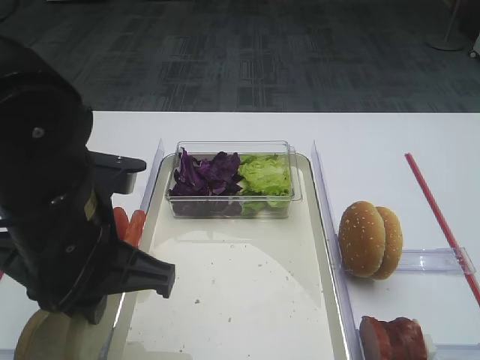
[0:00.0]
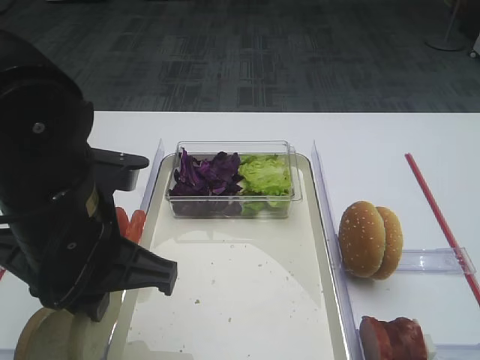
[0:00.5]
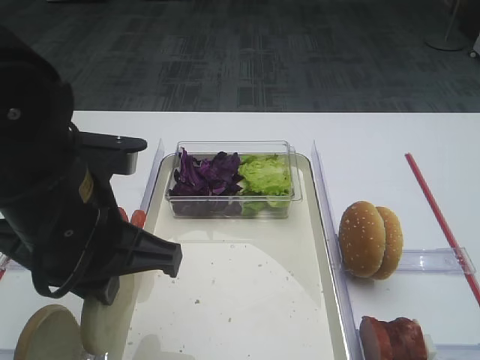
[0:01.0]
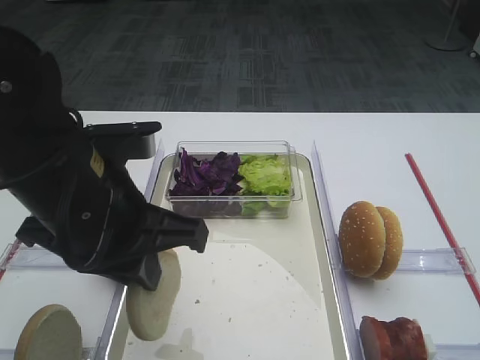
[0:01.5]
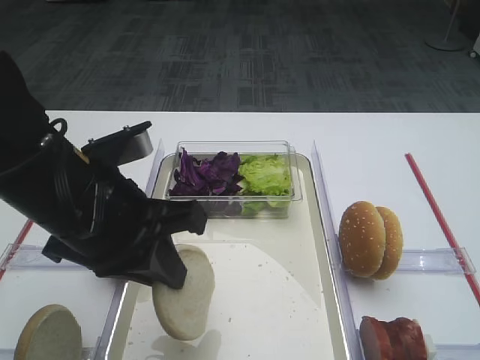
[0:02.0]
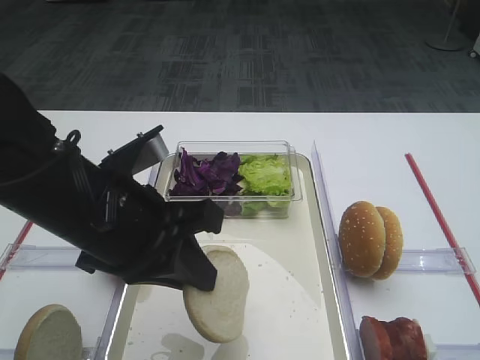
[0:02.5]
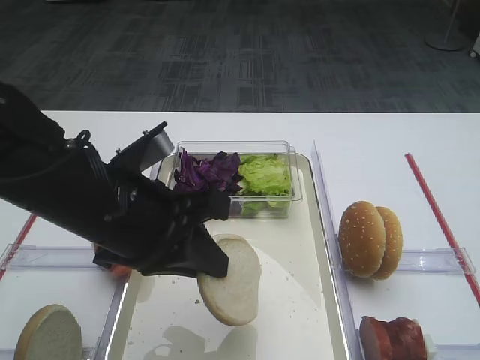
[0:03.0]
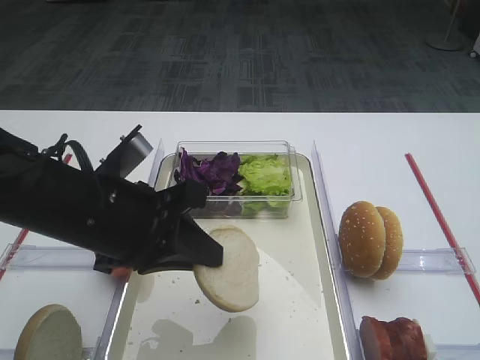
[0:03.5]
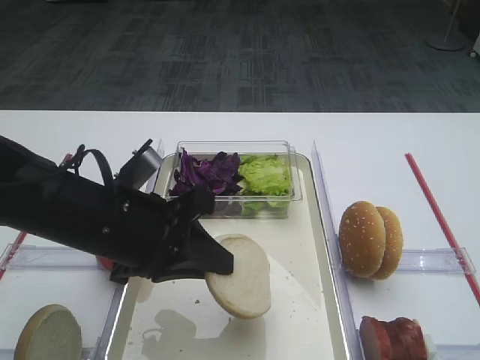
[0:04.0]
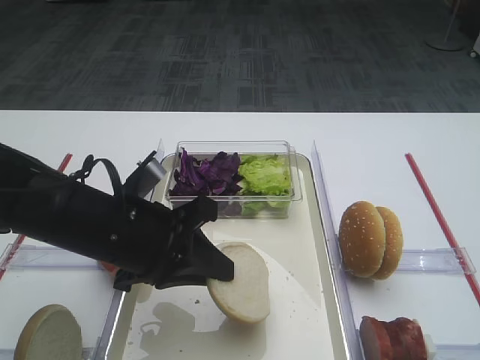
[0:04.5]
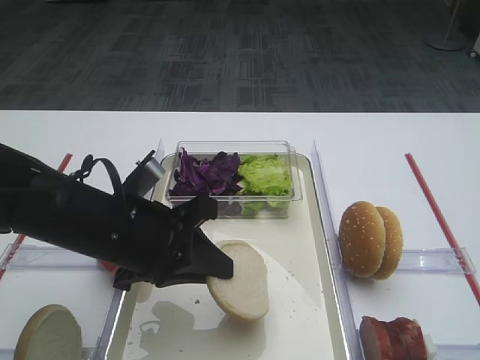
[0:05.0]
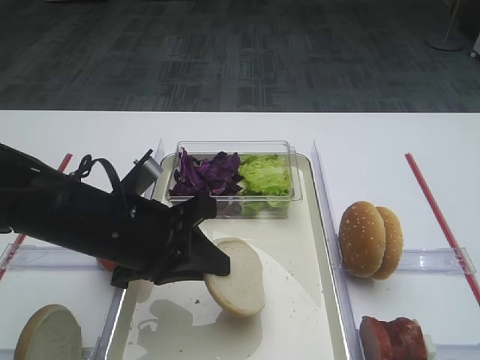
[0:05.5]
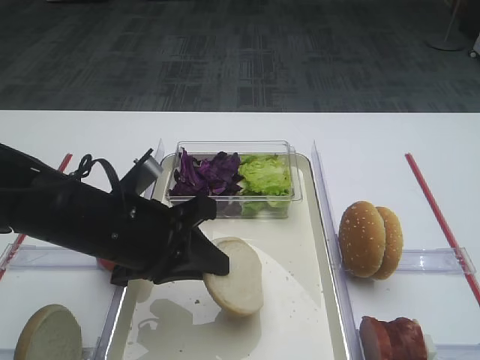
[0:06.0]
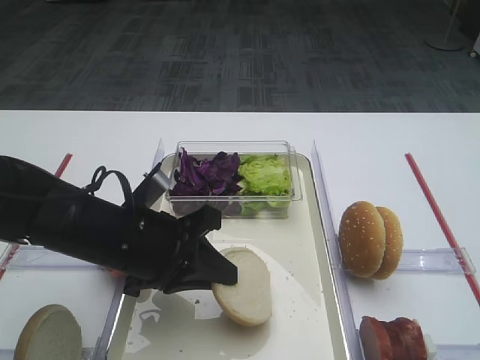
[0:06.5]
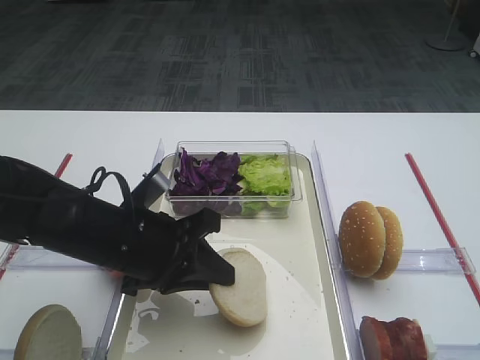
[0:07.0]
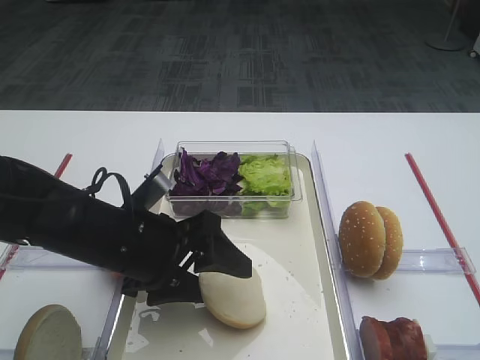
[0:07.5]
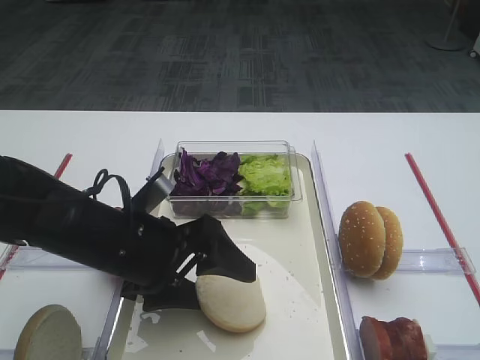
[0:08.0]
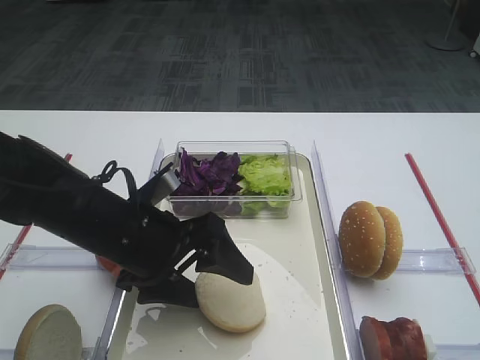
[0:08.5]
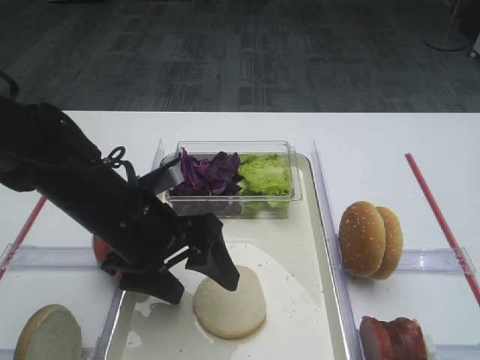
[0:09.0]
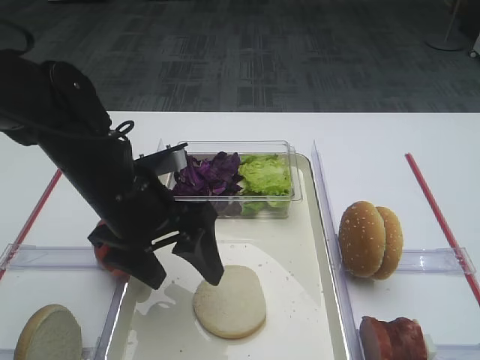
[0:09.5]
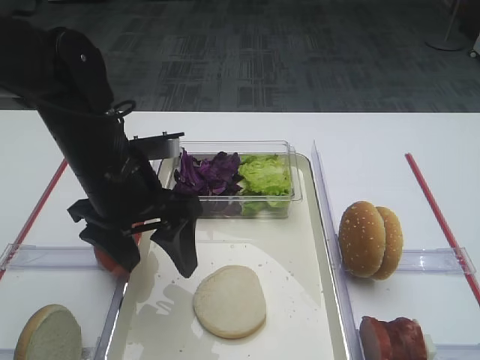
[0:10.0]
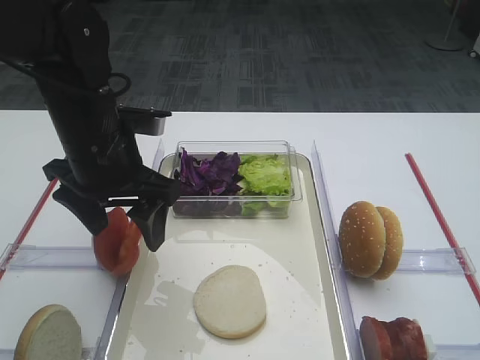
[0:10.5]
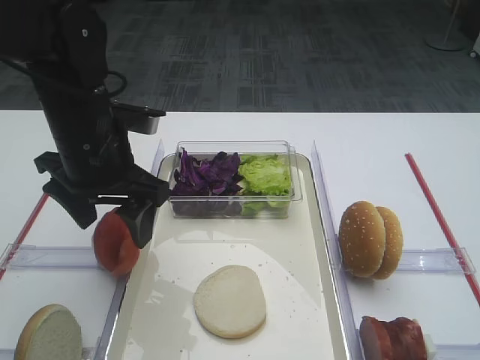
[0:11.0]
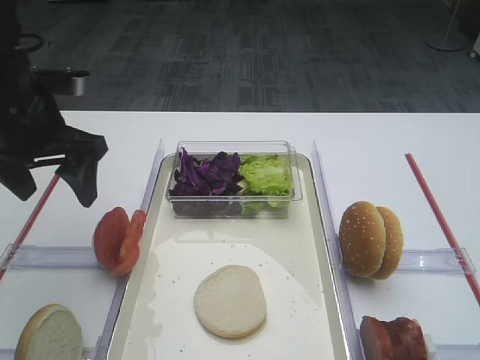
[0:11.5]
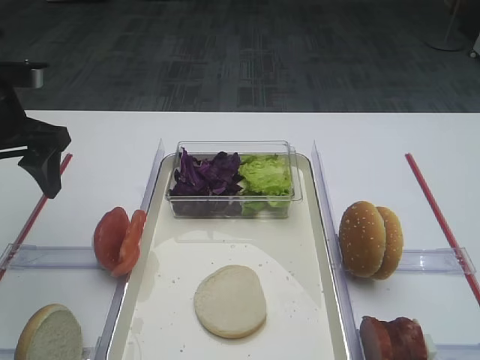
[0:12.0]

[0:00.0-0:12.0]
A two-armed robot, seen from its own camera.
0:02.0 to 0:04.0: The left gripper is displaced downward by roughly 5 cm.
0:04.0 to 0:06.0: The grippers make only small movements.
0:06.0 to 0:08.0: The left gripper opens.
0:08.0 to 0:10.0: The left gripper is displaced upward by roughly 5 cm.
0:10.0 to 0:12.0: The left gripper shifts roughly 15 cm to the left.

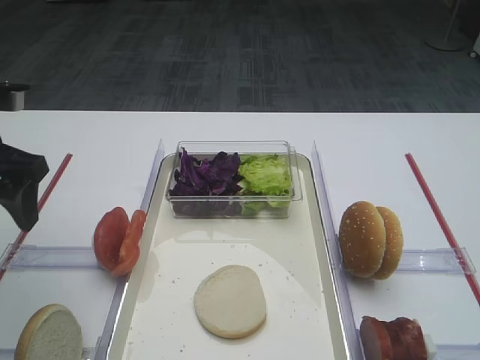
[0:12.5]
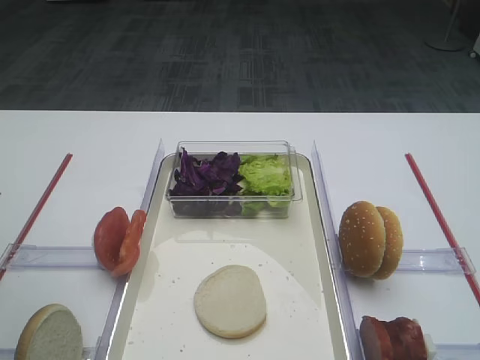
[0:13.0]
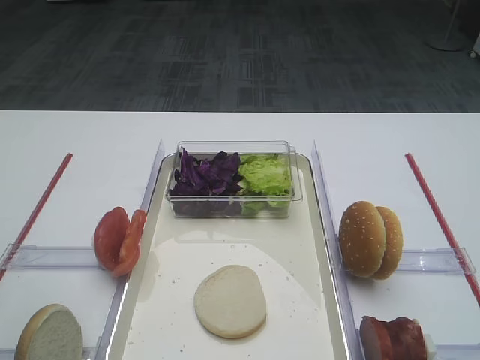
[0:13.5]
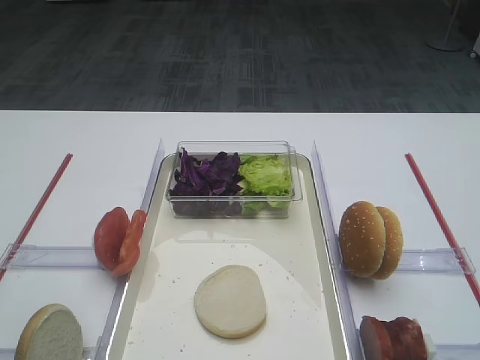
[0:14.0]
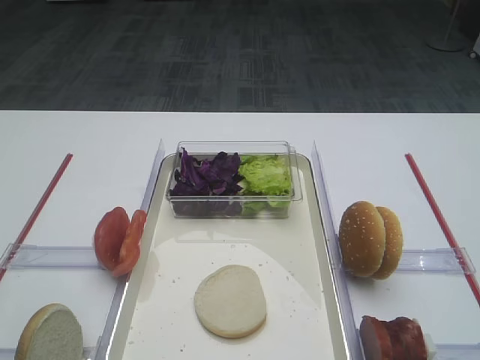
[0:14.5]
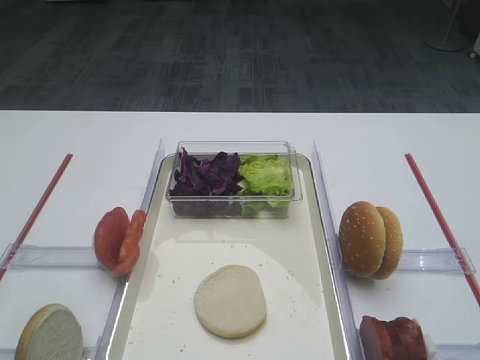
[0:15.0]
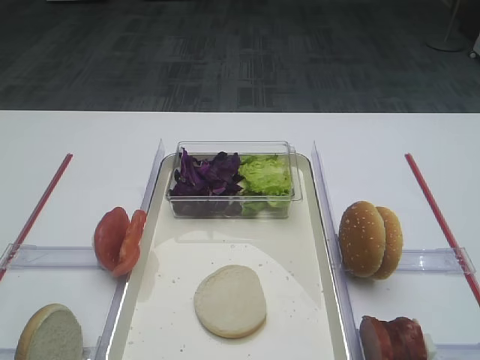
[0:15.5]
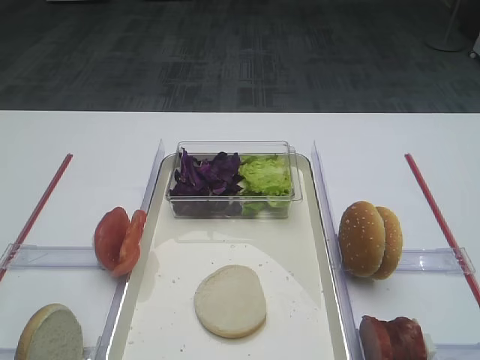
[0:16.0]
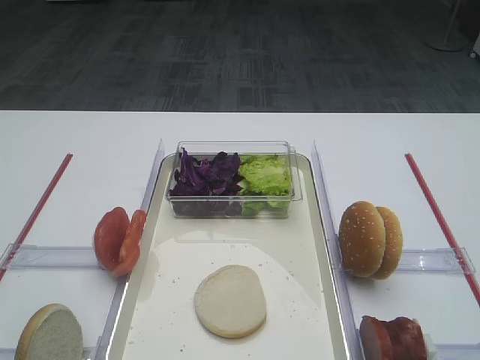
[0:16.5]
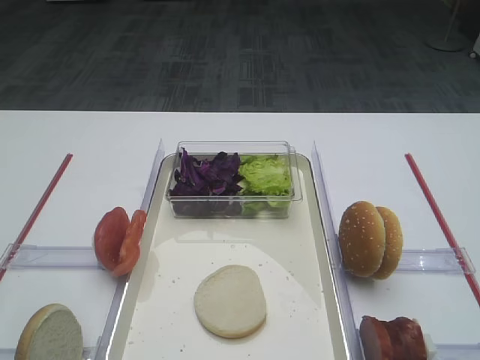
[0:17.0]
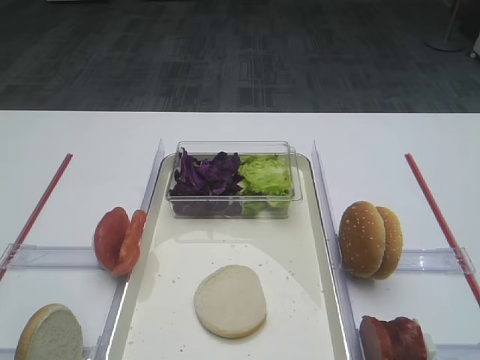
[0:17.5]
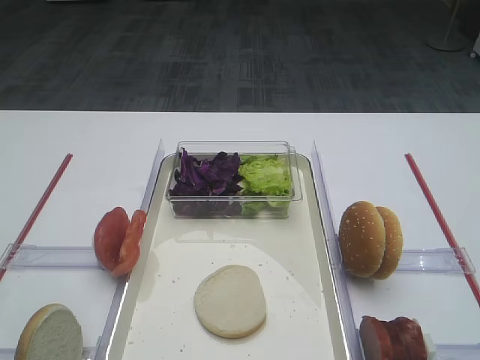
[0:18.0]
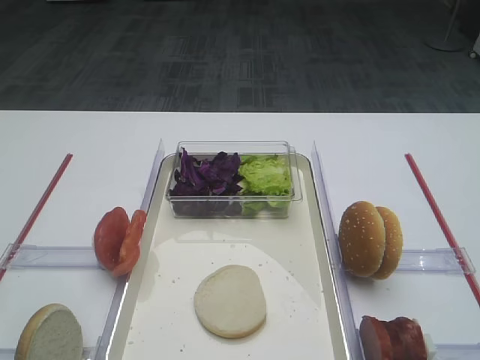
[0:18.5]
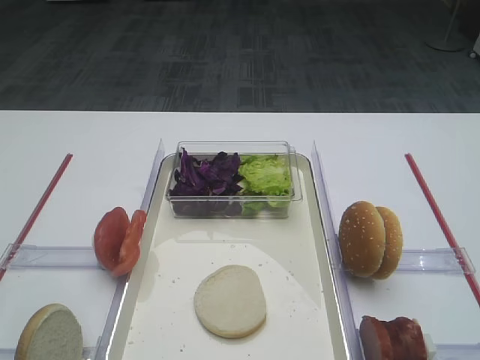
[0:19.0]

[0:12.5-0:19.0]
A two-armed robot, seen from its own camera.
0:12.5 to 0:14.5: The left gripper heads backward, covering about 25 cm.
0:17.0 to 0:19.0: Neither gripper changes place.

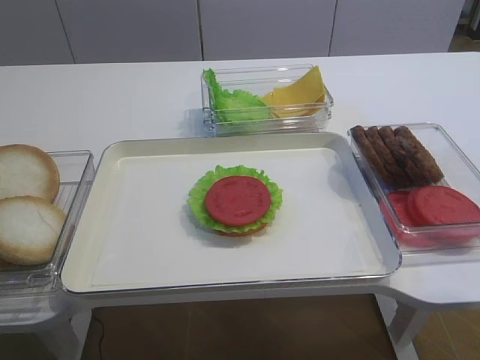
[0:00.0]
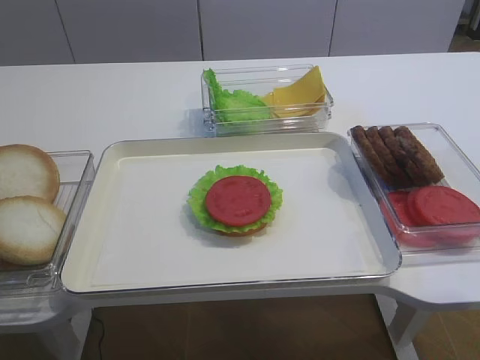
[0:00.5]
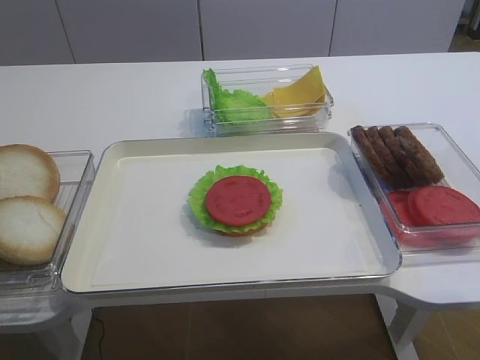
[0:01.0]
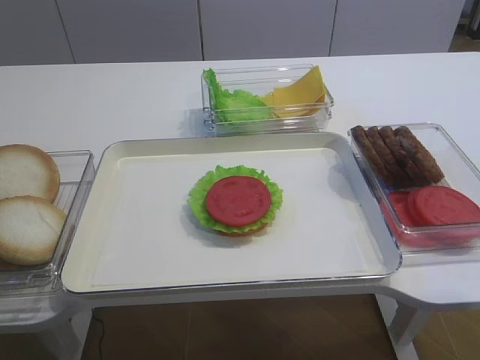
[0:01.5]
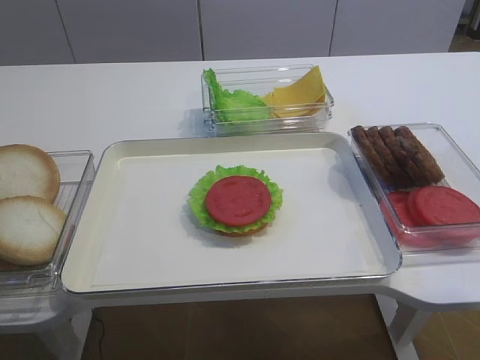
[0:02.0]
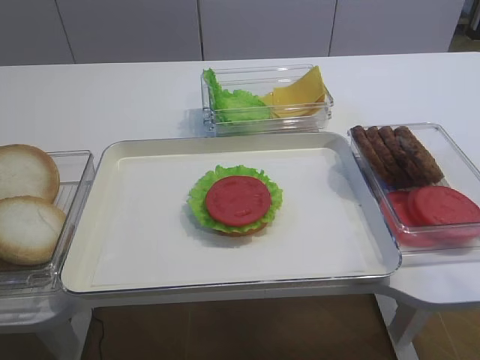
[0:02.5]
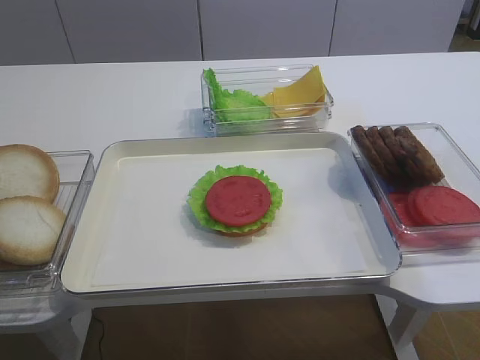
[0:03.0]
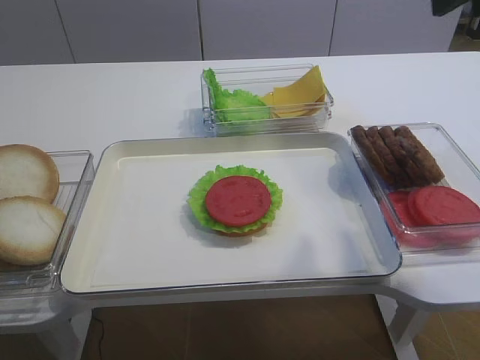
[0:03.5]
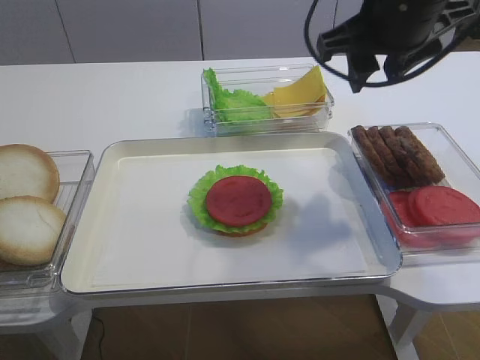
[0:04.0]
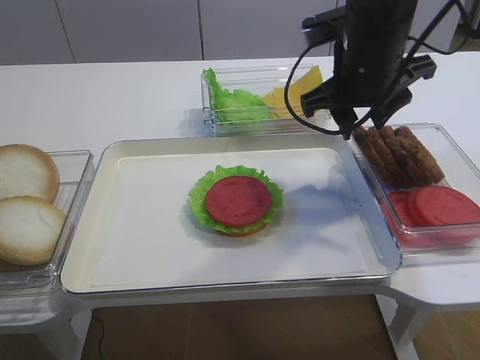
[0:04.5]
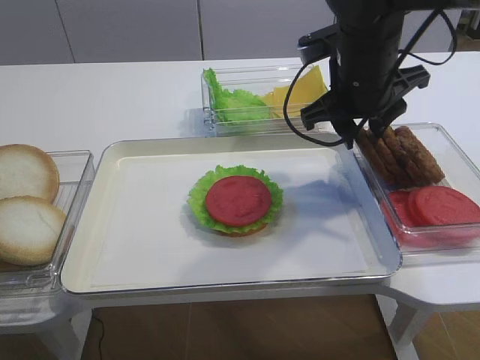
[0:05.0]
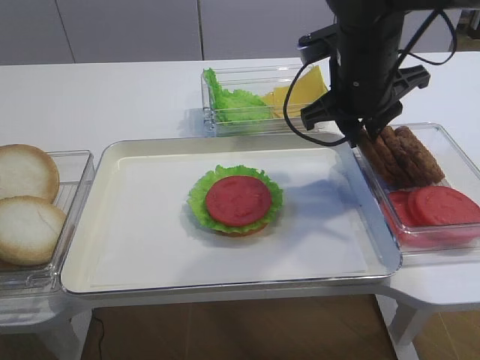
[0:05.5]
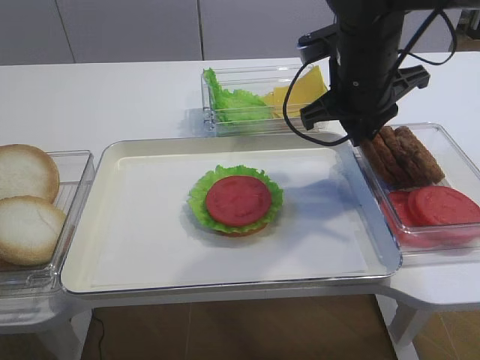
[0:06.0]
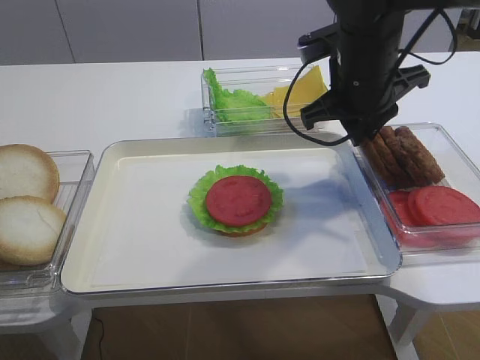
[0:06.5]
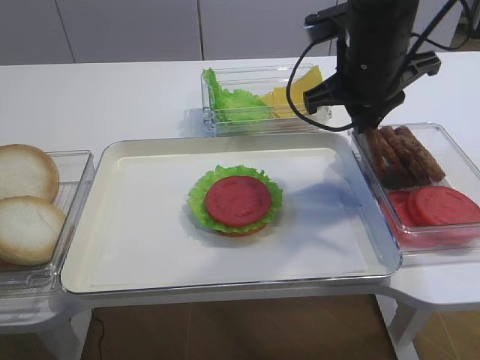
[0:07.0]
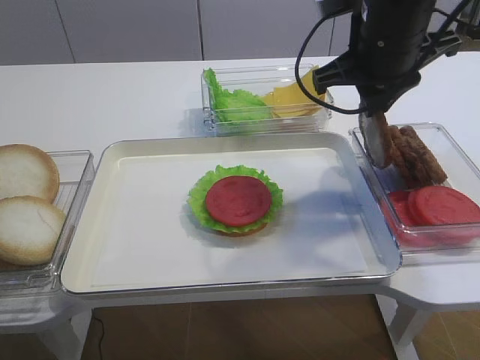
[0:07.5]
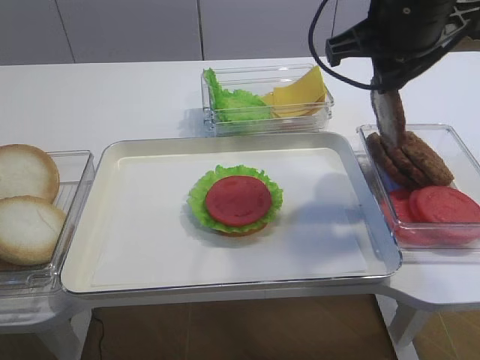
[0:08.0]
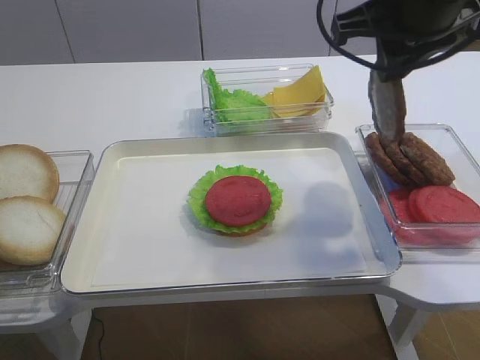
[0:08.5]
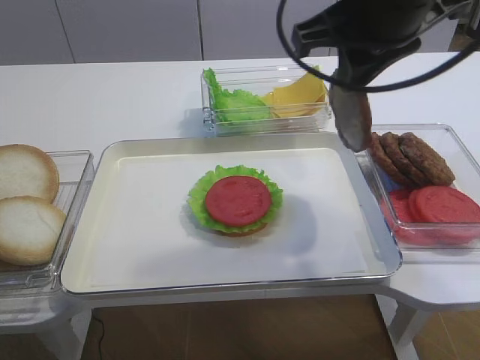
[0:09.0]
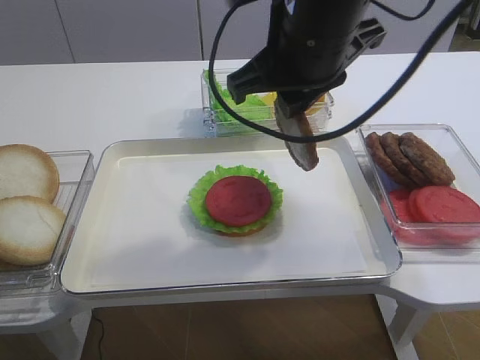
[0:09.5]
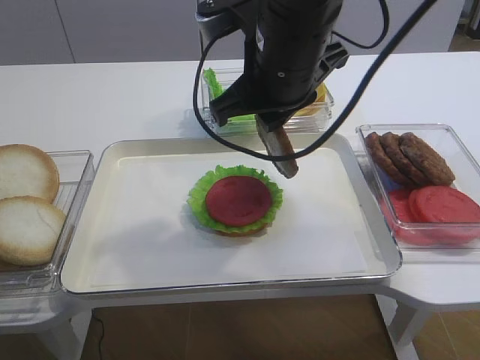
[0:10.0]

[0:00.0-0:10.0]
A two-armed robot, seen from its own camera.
Step, 0:00.0 to 0:07.5: Pick up the cutlet with the right gripper.
0:02.0 to 0:04.0: The right gripper heads forward and to the left, covering roughly 35 cm, and opens its fingers.
0:04.0 to 0:06.0: The right gripper is displaced downward by roughly 10 cm, and closes up.
0:06.0 to 0:08.0: The right gripper shifts roughly 10 cm upward.
0:08.0 to 0:10.0: The right gripper goes about 10 cm to the left.
